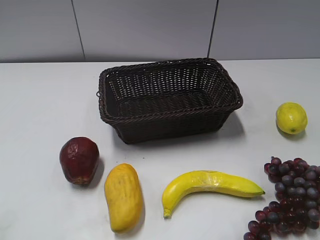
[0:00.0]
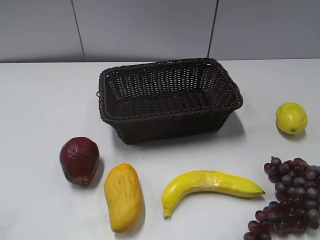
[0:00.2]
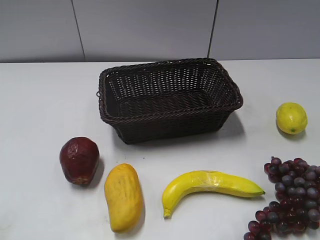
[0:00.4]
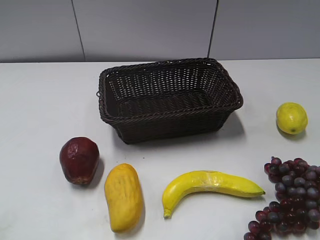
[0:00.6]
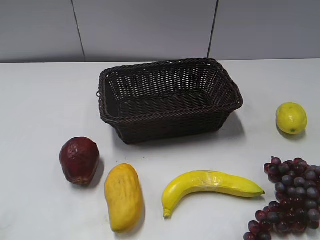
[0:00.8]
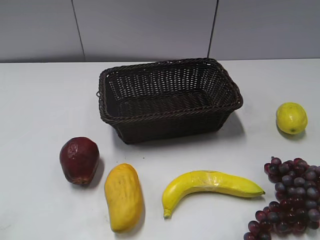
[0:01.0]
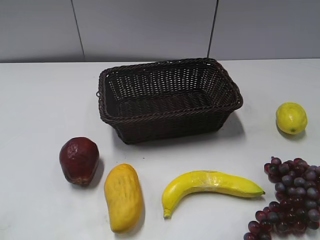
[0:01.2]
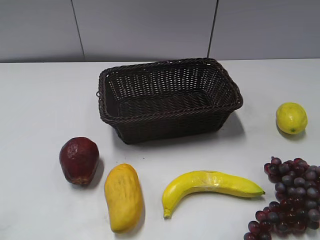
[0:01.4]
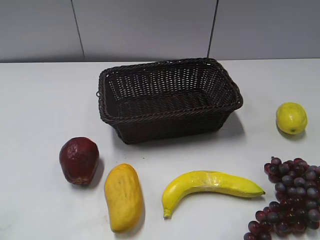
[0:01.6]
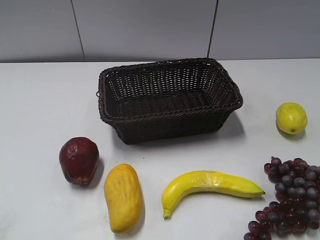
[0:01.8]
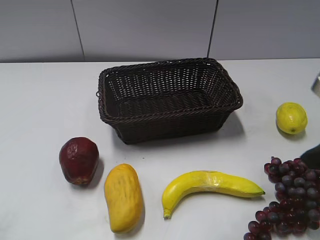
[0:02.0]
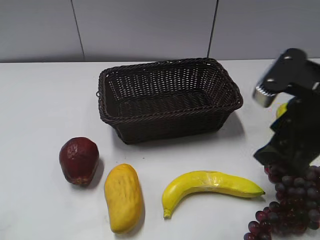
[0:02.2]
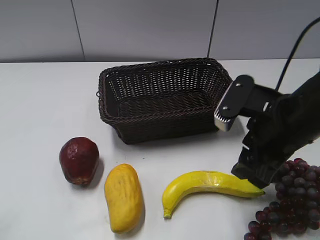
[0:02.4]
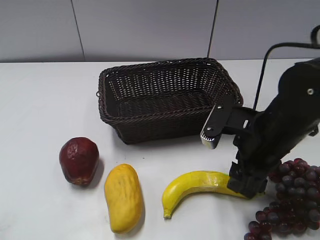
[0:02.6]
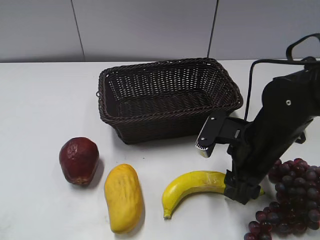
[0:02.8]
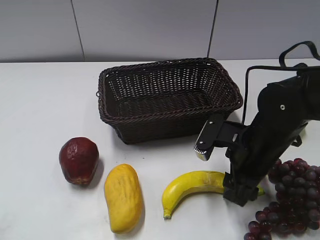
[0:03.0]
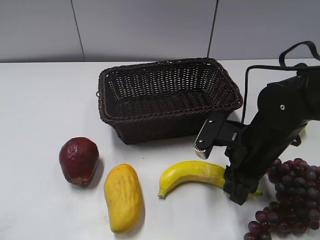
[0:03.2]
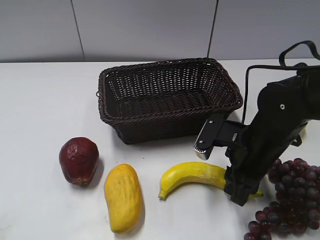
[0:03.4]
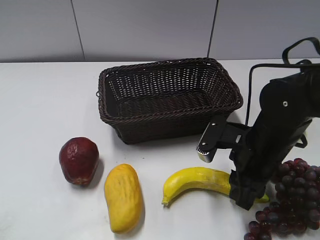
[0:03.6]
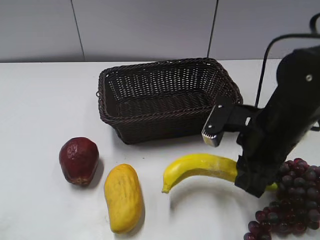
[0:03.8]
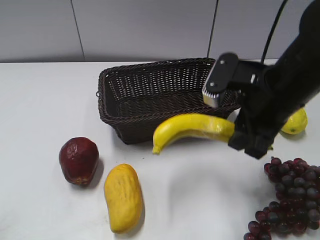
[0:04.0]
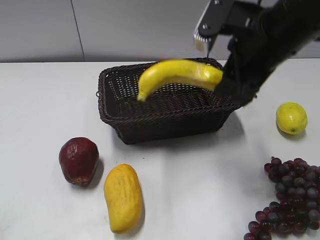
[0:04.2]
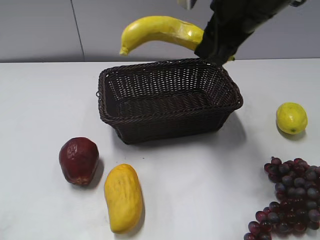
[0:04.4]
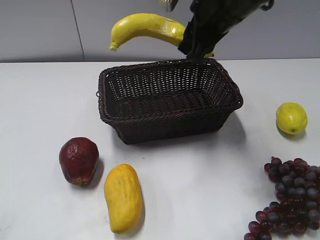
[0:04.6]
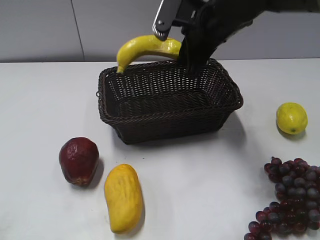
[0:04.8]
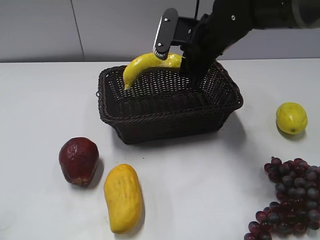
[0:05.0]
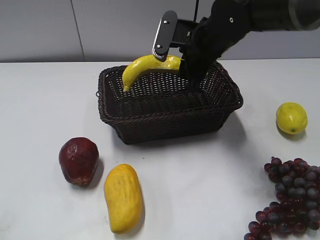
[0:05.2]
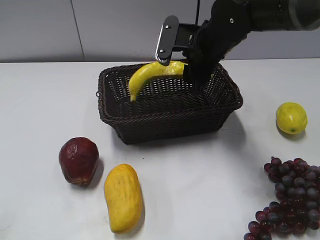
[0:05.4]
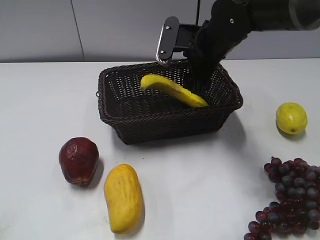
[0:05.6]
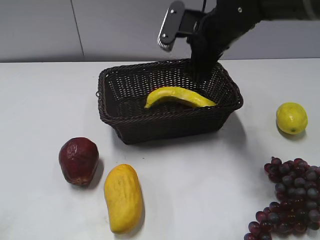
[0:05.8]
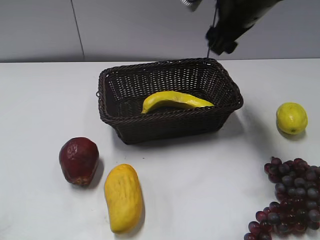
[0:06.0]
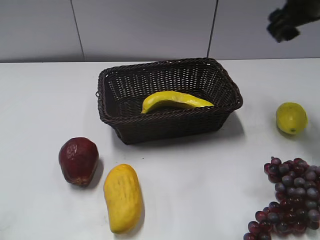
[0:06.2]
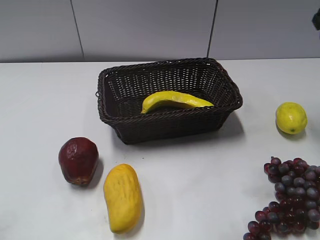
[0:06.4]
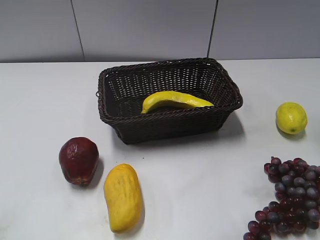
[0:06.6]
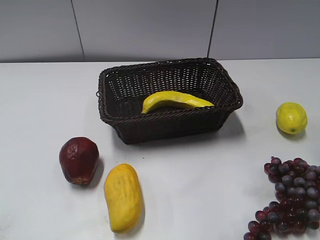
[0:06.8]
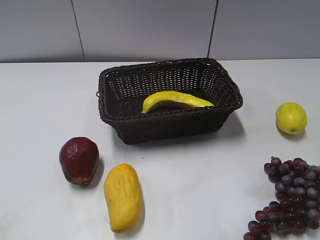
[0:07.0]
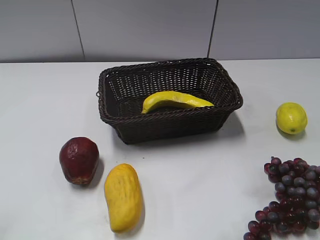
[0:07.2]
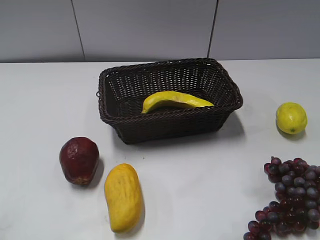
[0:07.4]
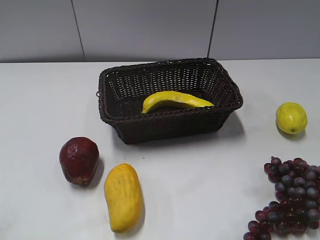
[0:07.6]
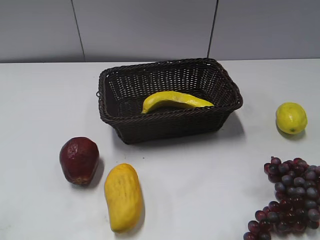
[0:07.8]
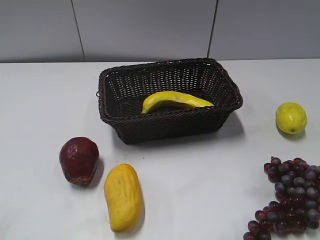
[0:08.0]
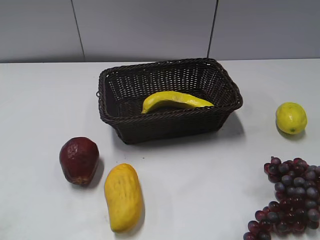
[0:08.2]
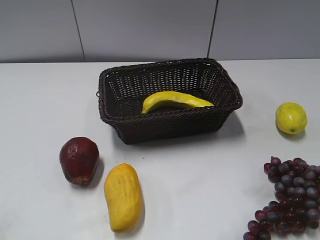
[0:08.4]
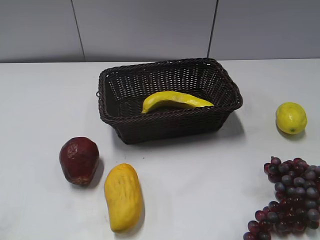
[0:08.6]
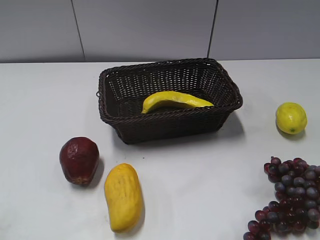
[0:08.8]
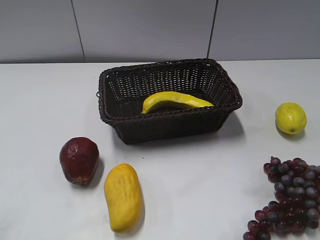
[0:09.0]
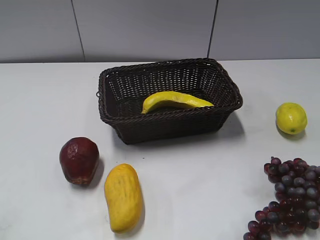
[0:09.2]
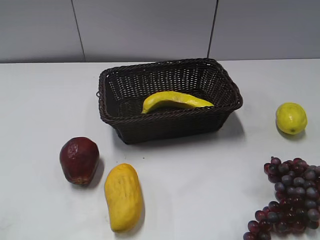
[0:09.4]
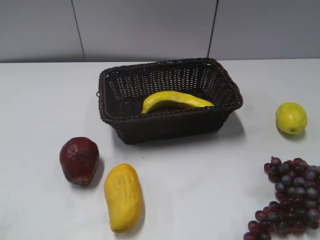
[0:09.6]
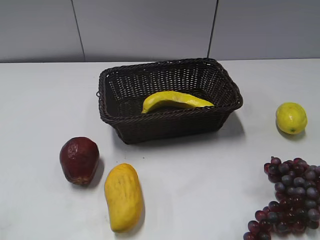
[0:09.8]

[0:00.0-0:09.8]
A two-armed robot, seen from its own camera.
Step, 0:02.0 to 0:03.4: Grasp the banana with right gripper.
Step, 0:03.8 to 0:06.0: Place the banana in the basket with right gripper.
0:01.4 to 0:02.8: The right gripper travels downward, forward and to the left by some 25 cm.
0:02.8 to 0:04.2: The right gripper is displaced upward by about 15 cm, and closes.
0:04.2 to 0:05.6: The right gripper is displaced forward and downward by about 15 cm, and opens.
0:05.6 to 0:07.0: The right gripper shifts approximately 30 cm upward, to the right and backward.

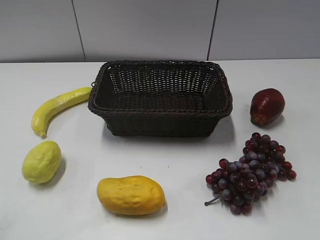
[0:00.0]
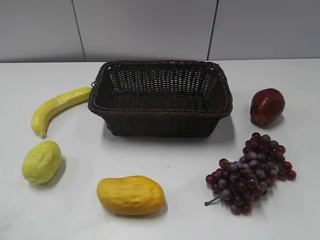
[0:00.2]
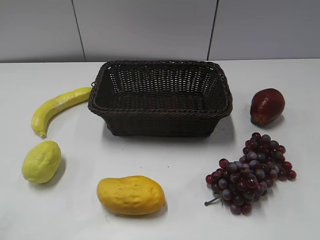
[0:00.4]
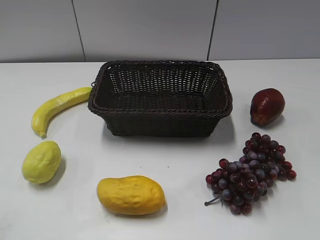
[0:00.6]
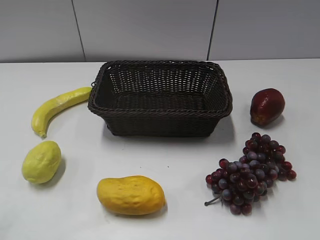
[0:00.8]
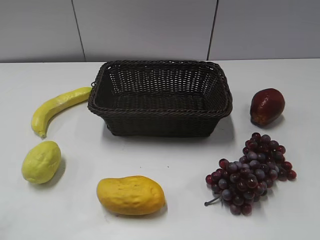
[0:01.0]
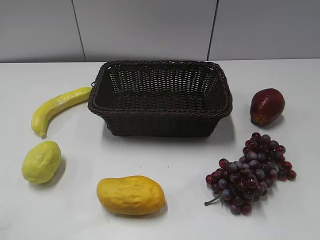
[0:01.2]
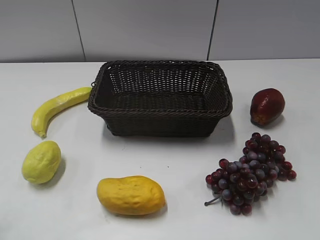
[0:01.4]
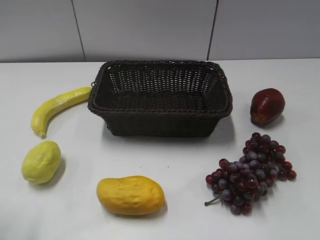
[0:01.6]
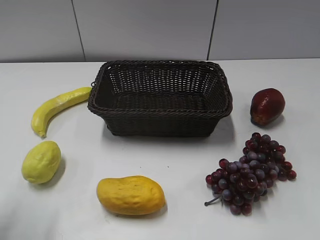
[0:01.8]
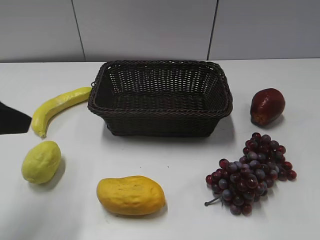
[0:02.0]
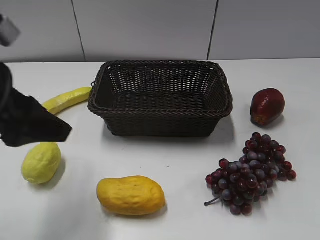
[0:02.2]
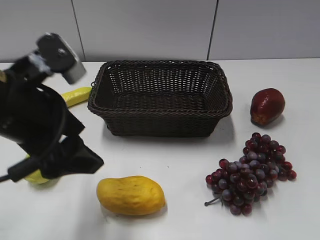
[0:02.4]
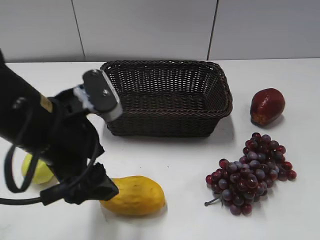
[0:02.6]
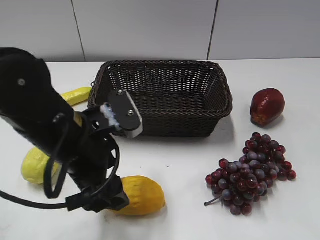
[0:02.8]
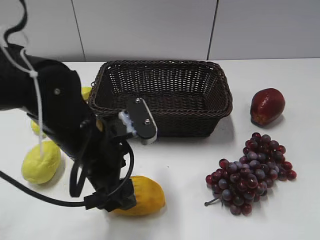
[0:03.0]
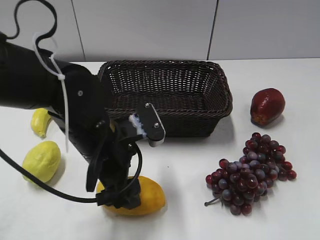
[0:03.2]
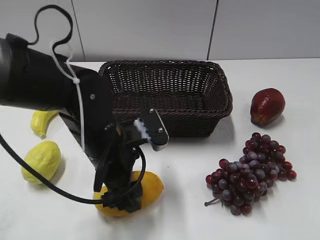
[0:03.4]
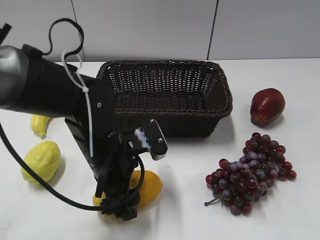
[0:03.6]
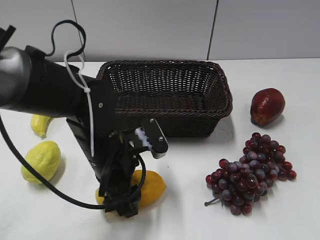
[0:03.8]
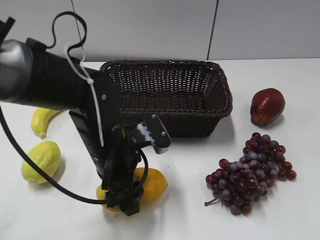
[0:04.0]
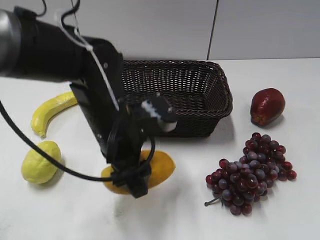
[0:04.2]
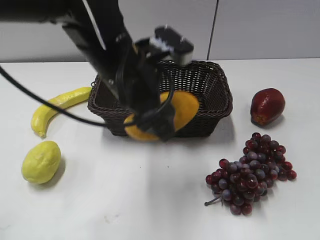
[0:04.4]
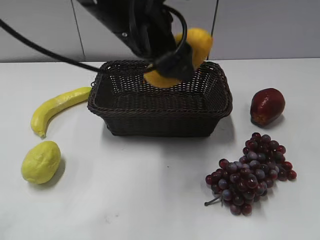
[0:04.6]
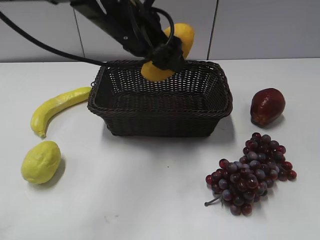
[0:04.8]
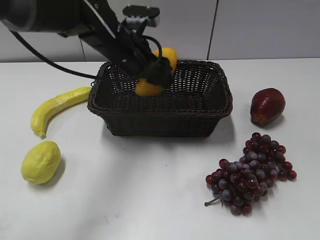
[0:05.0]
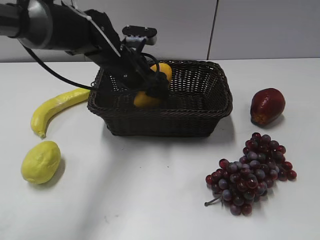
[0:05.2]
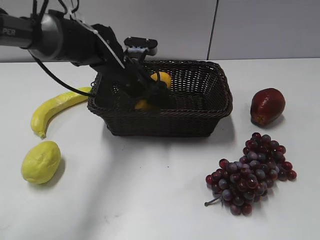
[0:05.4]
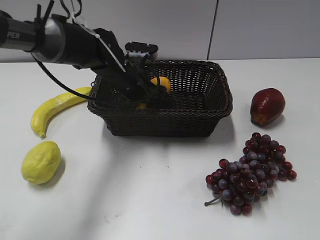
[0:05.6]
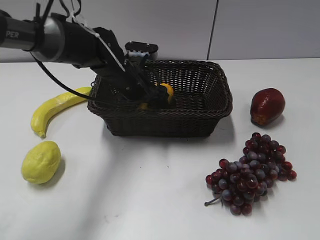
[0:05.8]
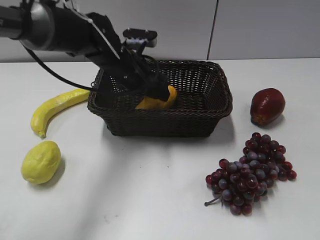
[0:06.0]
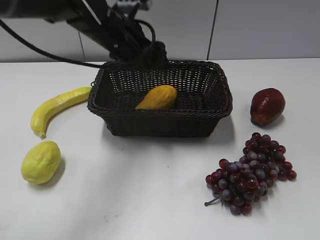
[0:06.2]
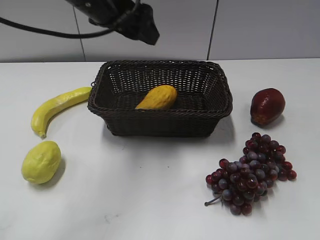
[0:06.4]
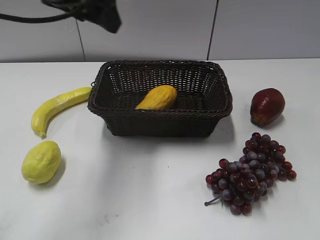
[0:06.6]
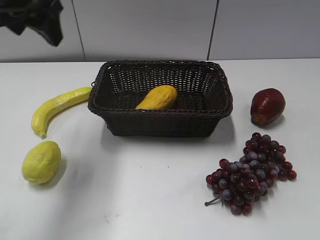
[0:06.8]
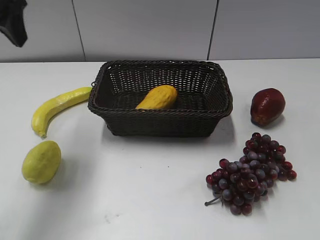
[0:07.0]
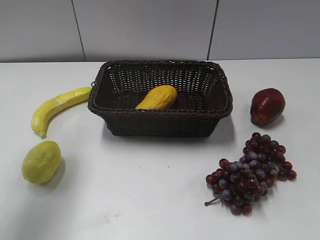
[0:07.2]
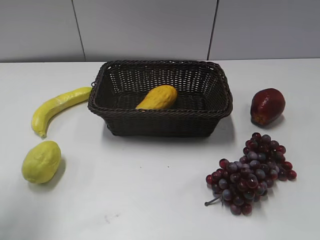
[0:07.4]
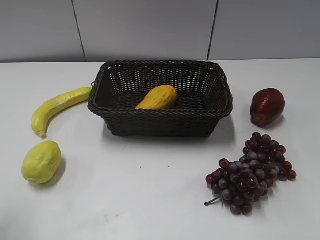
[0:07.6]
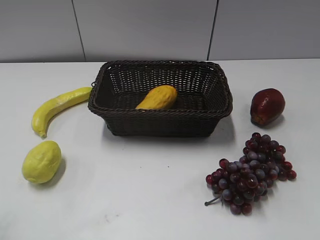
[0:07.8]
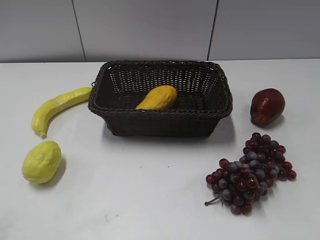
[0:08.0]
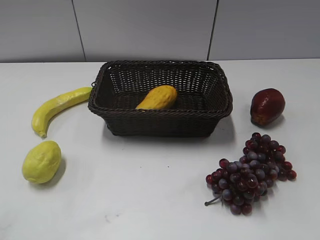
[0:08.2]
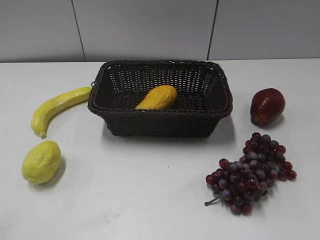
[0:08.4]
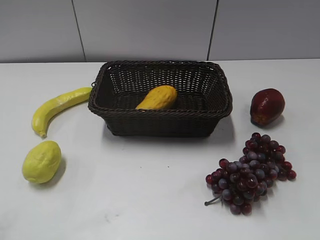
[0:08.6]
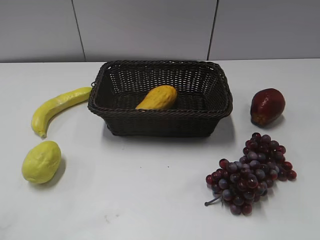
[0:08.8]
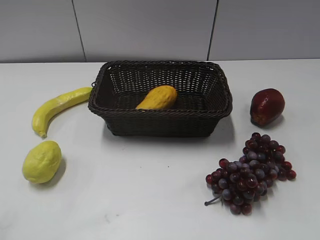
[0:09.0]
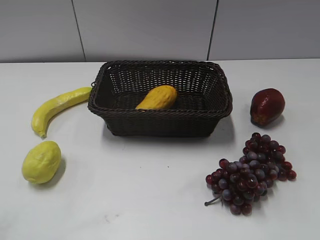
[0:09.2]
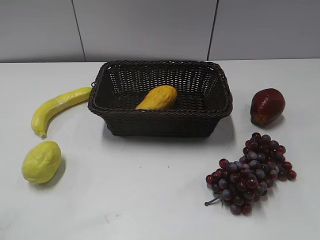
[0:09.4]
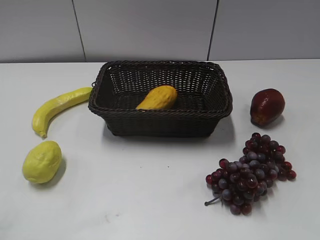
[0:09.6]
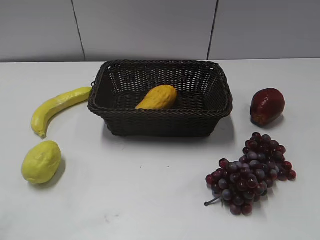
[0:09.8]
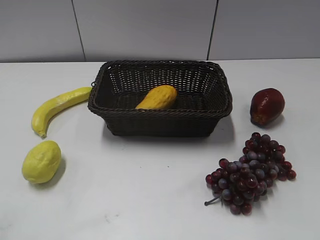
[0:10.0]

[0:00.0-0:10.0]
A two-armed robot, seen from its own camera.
Step, 0:02.0 to 0:03.6: Grasp the mango with left gripper.
Step, 0:04.0 to 0:05.8: Place the mango in the basket with left gripper.
0:01.4 to 0:02.8: The left gripper is displaced to the right, forward and downward by roughly 30 cm, and opens its fingers.
0:02.8 to 0:04.2: The left gripper is displaced to the right by approximately 5 cm, and closes its fingers.
0:04.2 to 0:05.8: The left gripper heads forward, covering some 15 cm, and opens its fingers.
0:05.8 to 0:07.2: The left gripper goes approximately 30 cm upward, to the left and backward, and closes.
0:07.2 to 0:08.6: The left gripper goes some 30 cm backward.

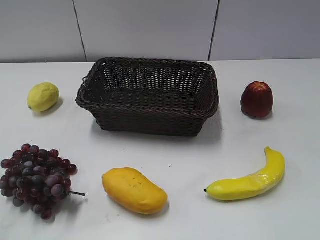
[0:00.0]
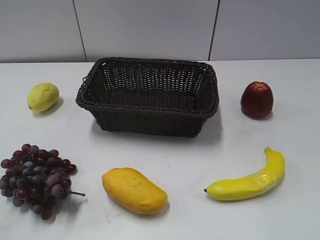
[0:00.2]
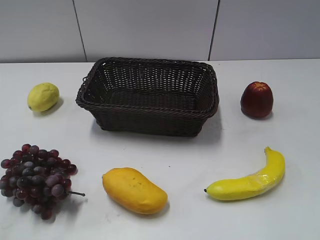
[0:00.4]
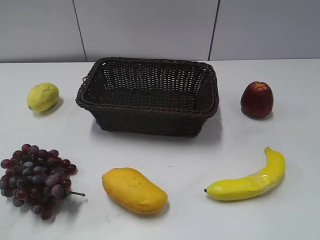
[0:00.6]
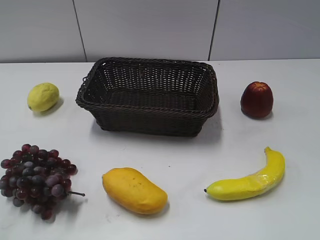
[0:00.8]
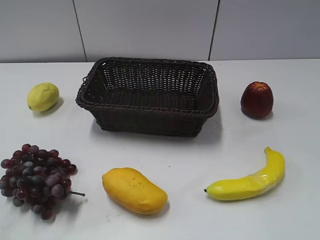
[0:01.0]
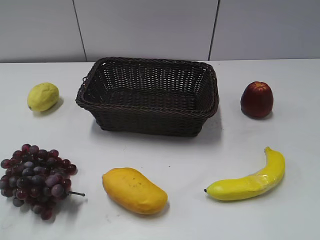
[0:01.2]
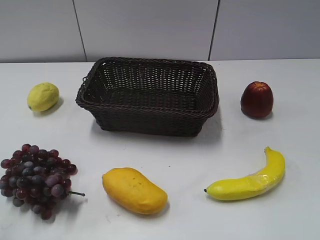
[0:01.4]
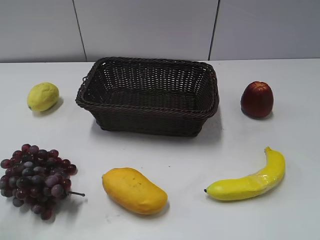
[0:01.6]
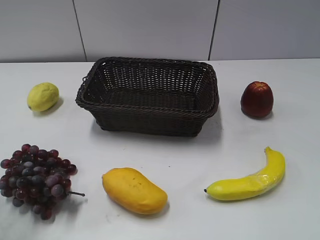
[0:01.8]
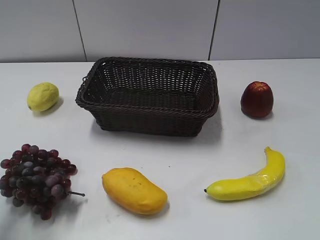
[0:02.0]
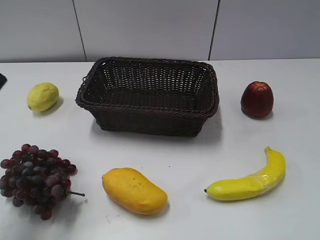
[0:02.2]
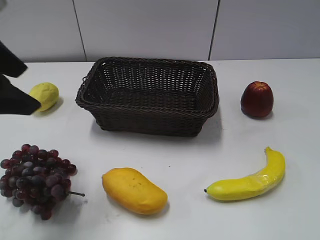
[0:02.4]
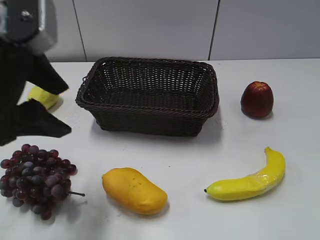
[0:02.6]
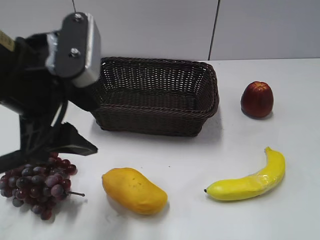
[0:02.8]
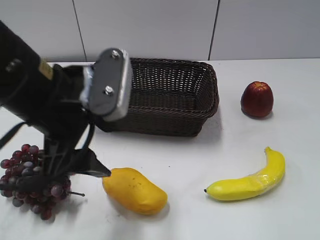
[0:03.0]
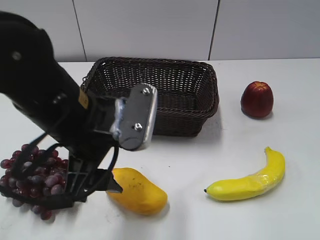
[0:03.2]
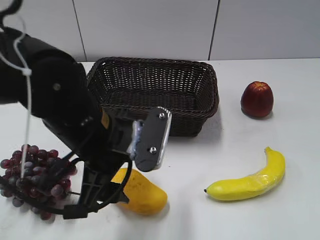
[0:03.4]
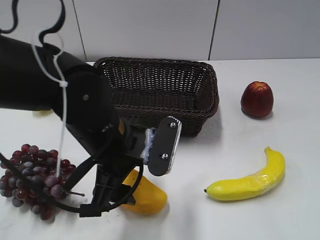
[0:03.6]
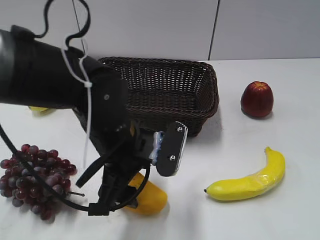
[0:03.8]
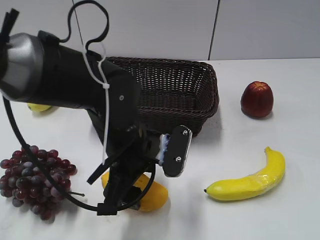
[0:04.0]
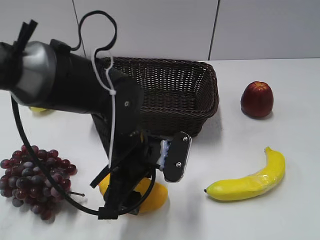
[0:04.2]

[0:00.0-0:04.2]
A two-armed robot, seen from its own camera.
0:01.4 to 0:02.8: The left gripper goes roughly 20 cm to the right and forward.
0:02.8 to 0:04.2: The left gripper is displaced downward and to the right by about 20 cm.
